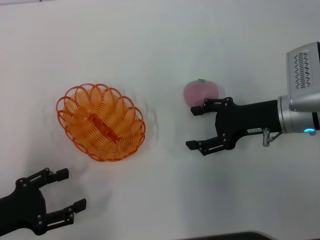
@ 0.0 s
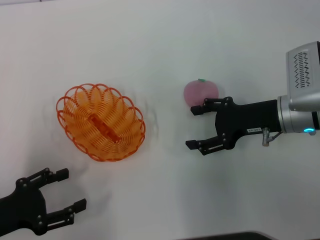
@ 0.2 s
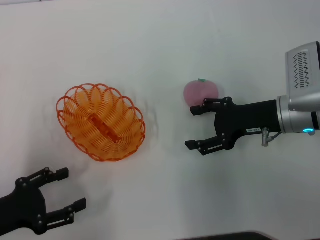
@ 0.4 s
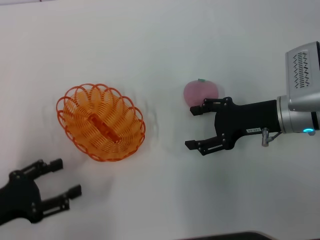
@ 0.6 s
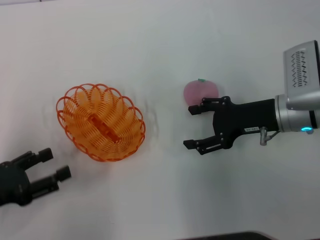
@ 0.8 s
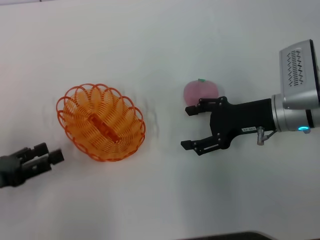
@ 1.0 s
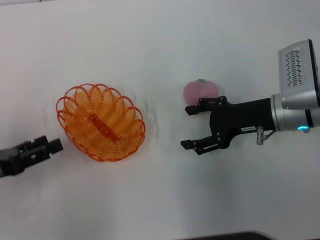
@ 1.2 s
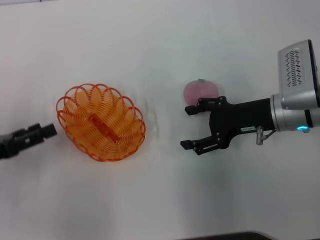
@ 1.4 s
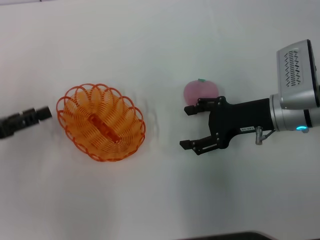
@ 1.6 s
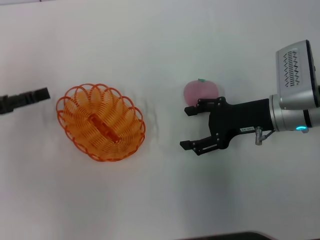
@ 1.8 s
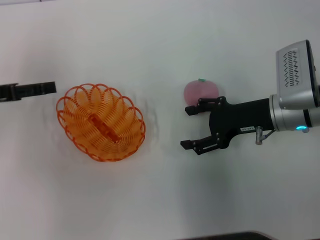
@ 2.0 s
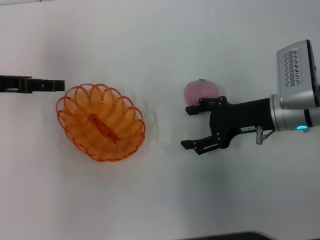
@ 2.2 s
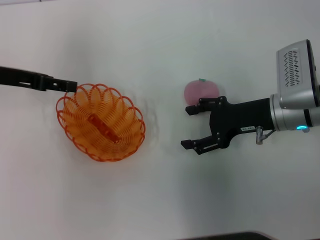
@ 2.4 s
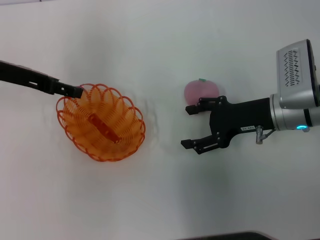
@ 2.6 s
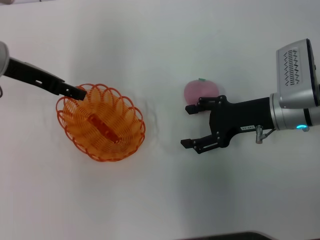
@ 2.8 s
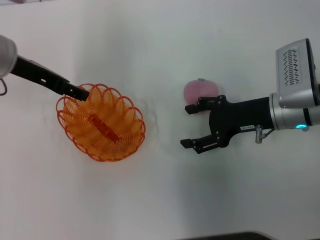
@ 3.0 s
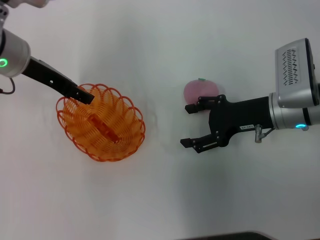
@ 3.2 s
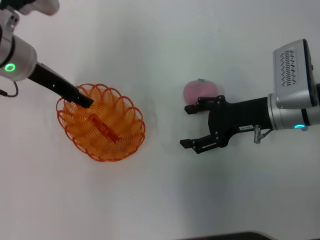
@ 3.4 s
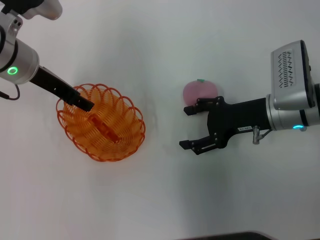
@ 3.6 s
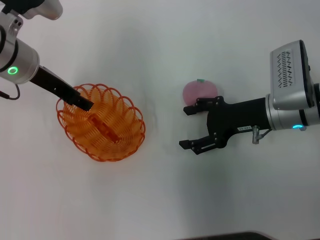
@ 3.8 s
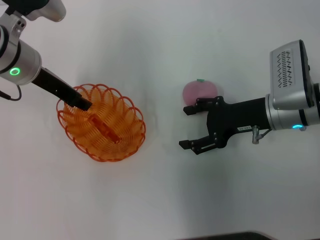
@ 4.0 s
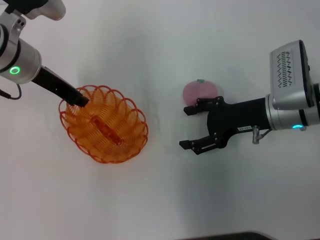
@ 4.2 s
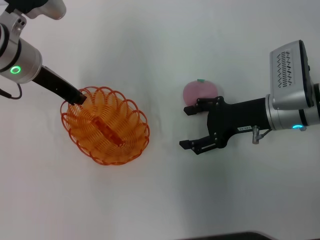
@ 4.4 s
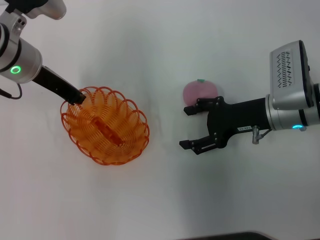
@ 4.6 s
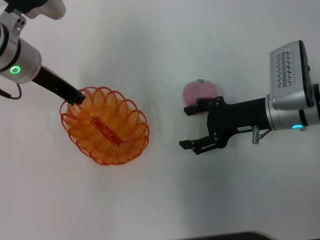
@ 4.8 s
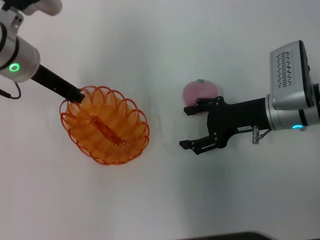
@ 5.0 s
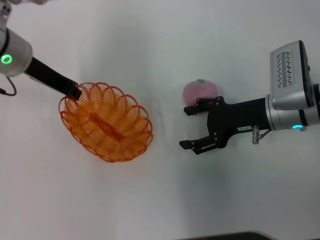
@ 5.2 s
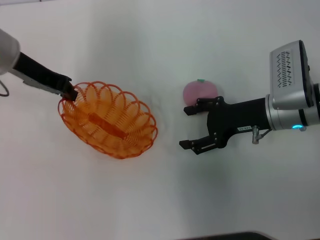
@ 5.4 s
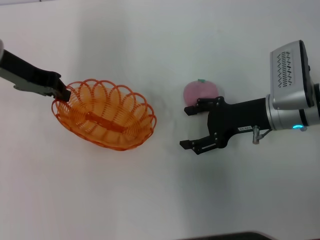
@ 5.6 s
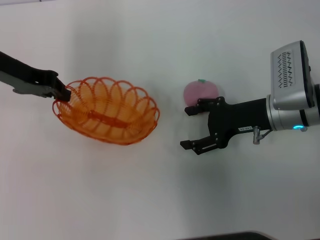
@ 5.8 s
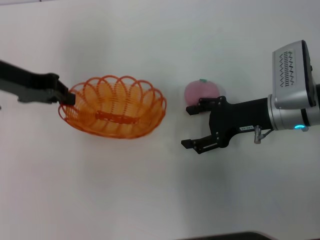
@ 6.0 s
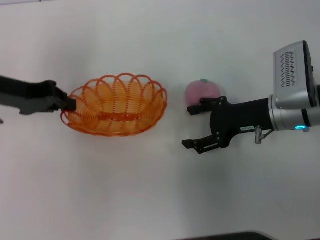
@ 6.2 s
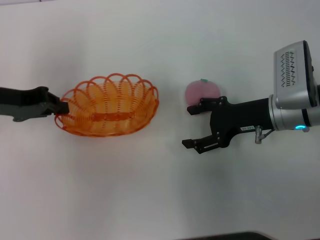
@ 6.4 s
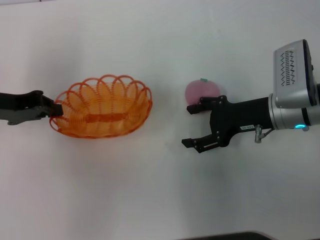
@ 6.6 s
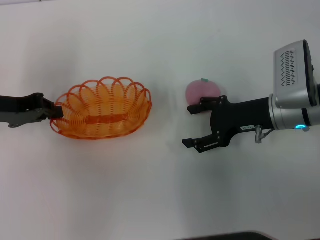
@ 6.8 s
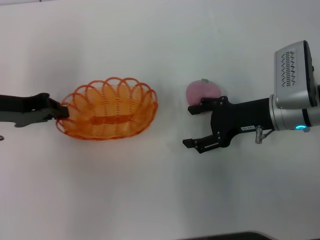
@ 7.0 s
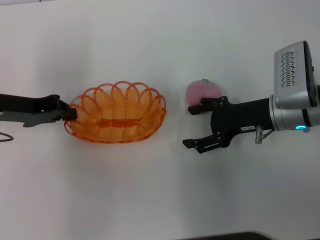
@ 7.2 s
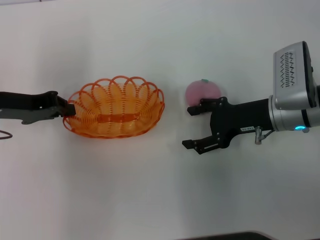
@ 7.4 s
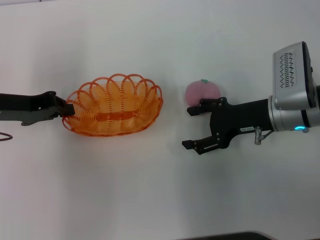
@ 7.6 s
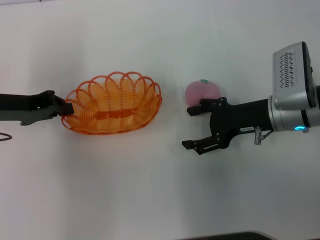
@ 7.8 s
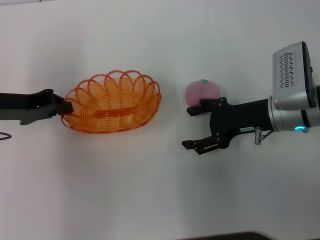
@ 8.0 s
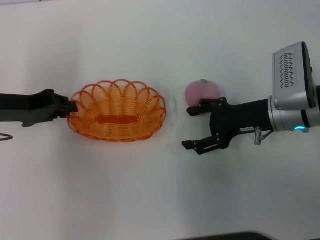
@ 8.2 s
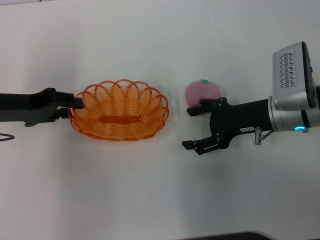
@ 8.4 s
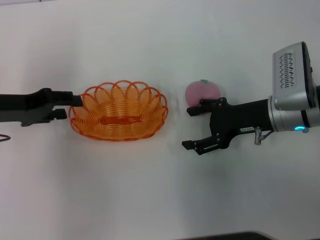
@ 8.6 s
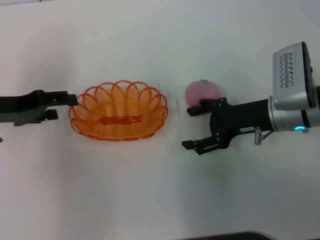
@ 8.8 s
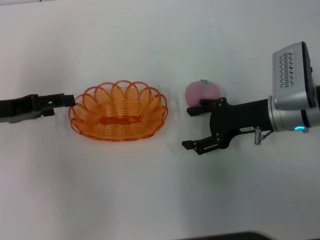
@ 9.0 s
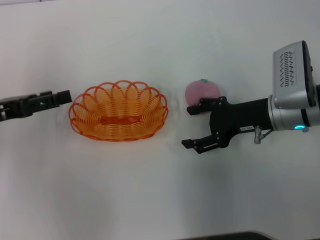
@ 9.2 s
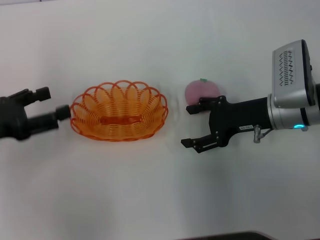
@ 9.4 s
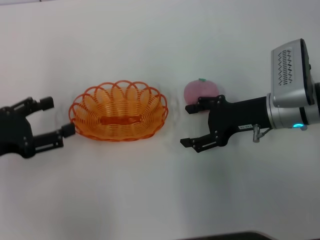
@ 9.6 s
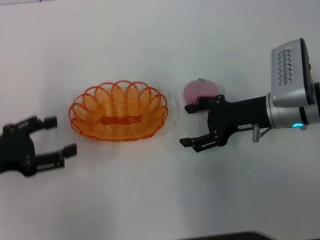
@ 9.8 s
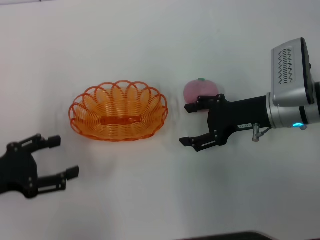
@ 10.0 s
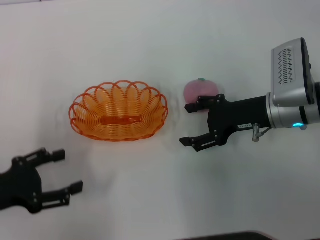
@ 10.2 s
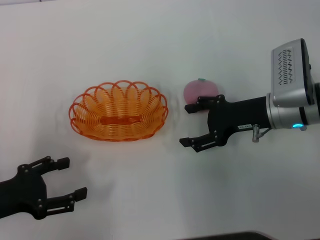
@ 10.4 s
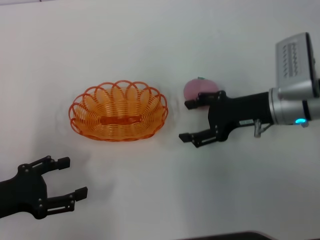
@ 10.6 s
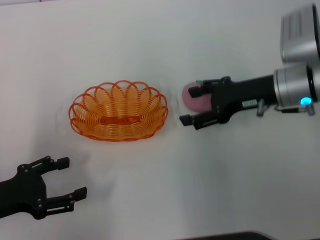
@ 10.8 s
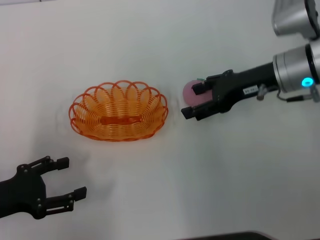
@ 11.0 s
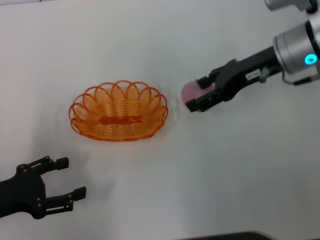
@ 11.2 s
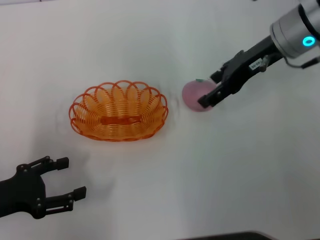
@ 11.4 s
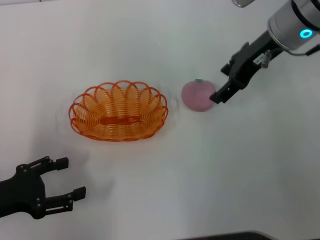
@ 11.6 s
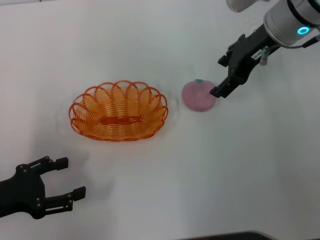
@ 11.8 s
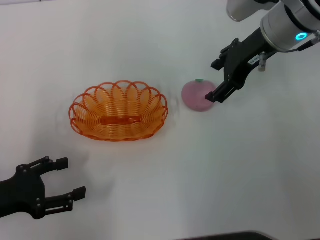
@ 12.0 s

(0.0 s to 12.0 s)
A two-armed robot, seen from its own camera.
Step, 0.0 s - 5.6 s: Pick up the basket with the left gripper.
Step, 5.8 s - 10.4 s: Place the basket in the center of view with the left gripper.
0.0 s - 1.6 s: The left gripper travels forward by about 10 cm.
1.6 s - 3.0 s: The left gripper travels forward, to the right and upward by about 20 cm.
3.0 s - 4.4 s: The left gripper closes up.
4.4 s - 6.0 s: The left gripper moves to the left, about 5 cm.
6.0 s - 7.6 s: The left gripper travels backward by about 5 cm.
7.6 s - 9.0 s: The left gripper opens its fingers.
9.0 s - 10.4 s: The left gripper is displaced backward and downward by about 15 cm.
10.4 s - 12.0 s: The right gripper shifts some 15 cm upward and forward.

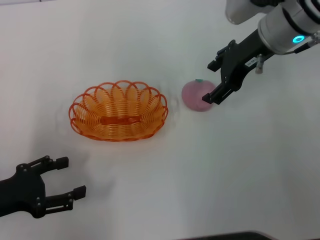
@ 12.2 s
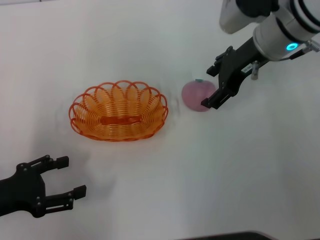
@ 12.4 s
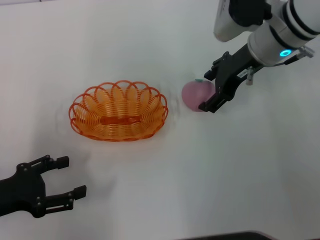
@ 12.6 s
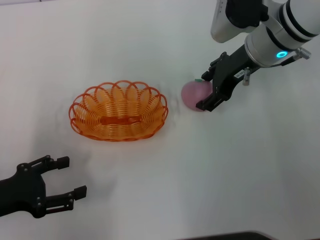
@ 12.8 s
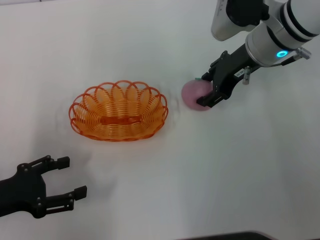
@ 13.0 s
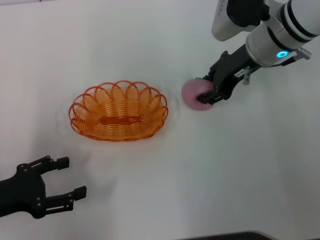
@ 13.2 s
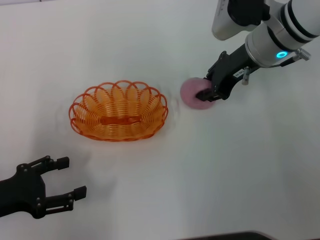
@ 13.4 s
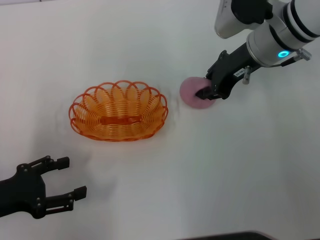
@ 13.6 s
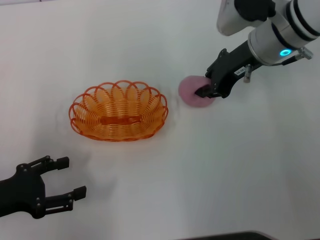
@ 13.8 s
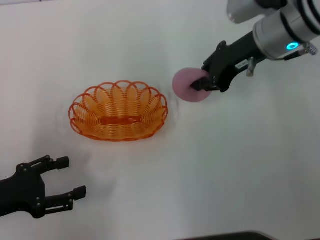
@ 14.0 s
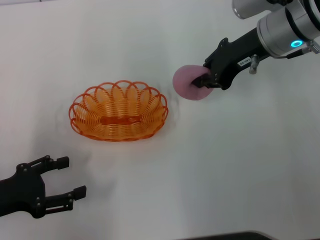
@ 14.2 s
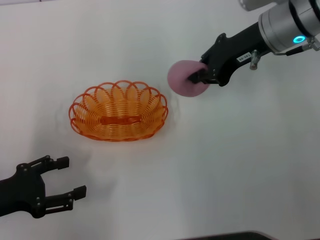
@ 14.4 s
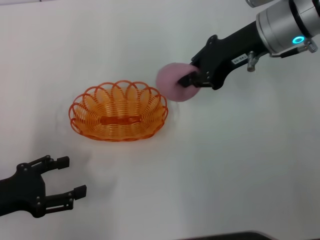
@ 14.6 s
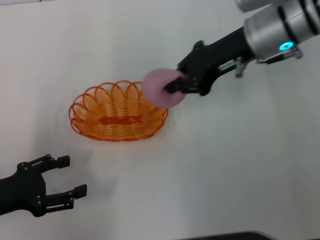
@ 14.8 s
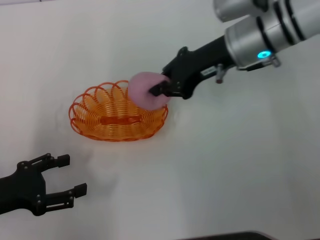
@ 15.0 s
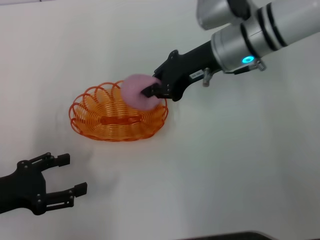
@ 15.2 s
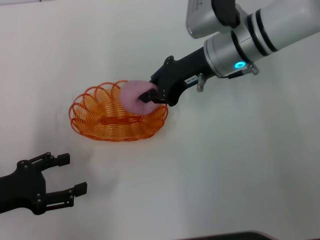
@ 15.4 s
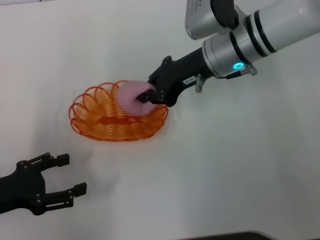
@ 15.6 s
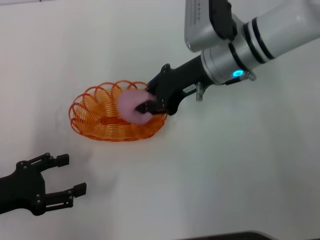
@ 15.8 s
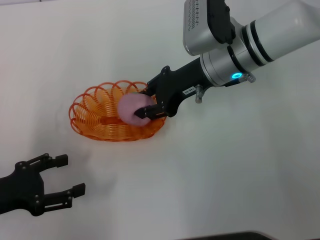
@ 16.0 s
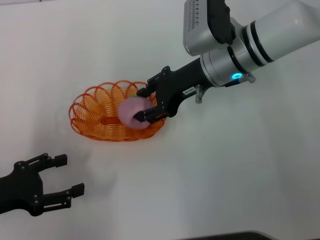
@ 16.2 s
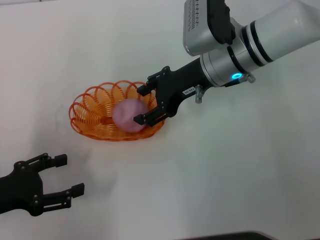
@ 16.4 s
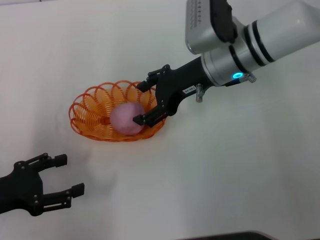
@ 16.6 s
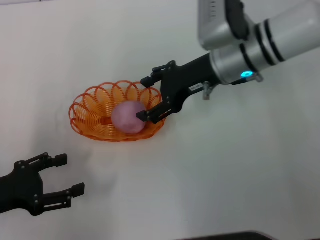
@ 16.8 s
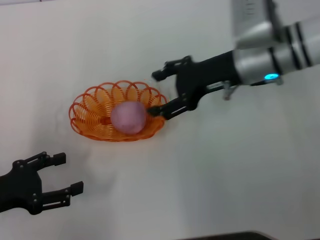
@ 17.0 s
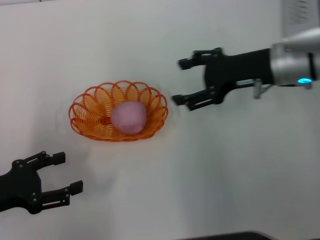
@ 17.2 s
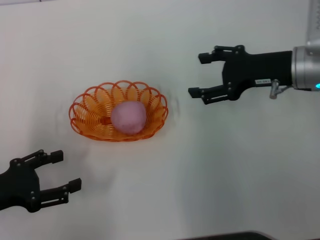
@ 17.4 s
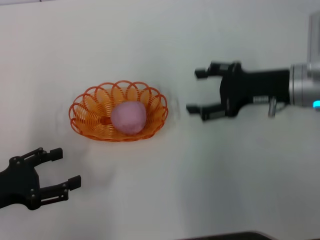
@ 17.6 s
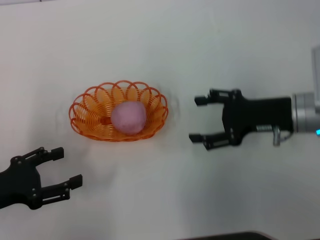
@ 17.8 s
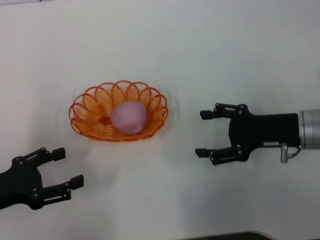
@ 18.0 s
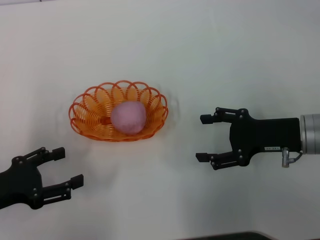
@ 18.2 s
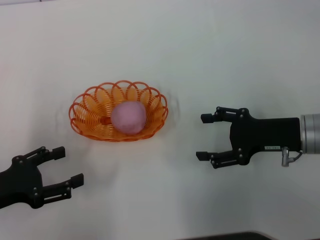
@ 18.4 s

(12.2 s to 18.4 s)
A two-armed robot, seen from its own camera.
Step, 12.2 s - 14.6 s: Pick up the peach with the right gripper.
Step, 14.8 s - 17.2 s: Place the peach into the basket with the right gripper.
12.2 s - 13.8 s: The right gripper closes its fingers.
13.8 s - 15.4 s: The right gripper travels to the left by roughly 5 cm.
15.4 s - 16.8 s: The right gripper opens its fingers.
16.8 s - 18.4 s: The right gripper travels to the right, backward and downward by roughly 15 cm.
